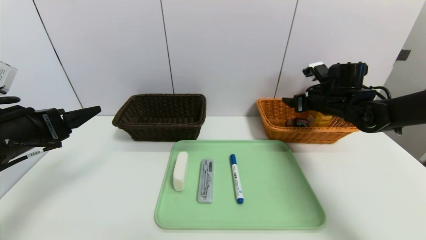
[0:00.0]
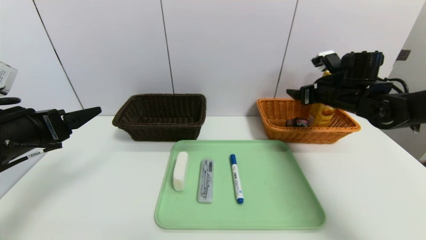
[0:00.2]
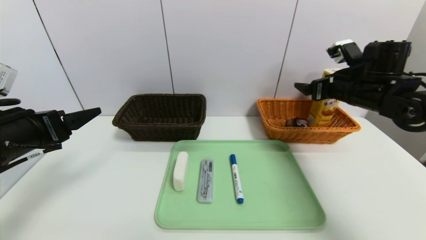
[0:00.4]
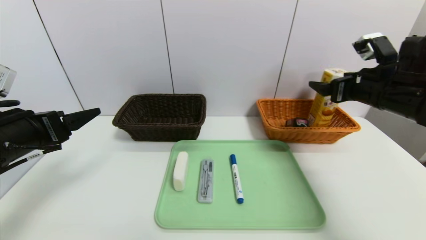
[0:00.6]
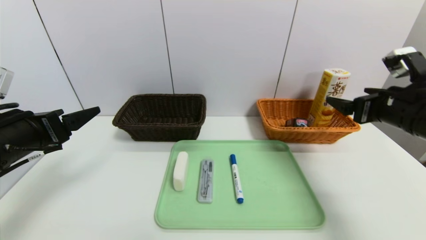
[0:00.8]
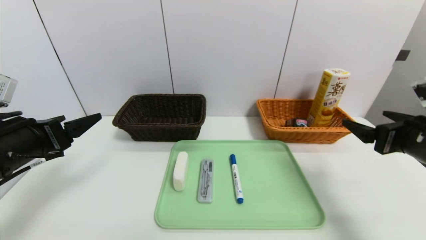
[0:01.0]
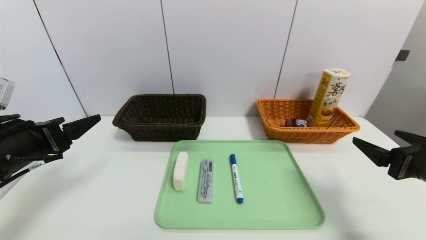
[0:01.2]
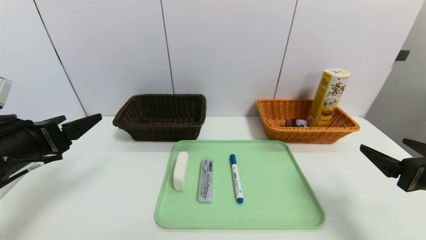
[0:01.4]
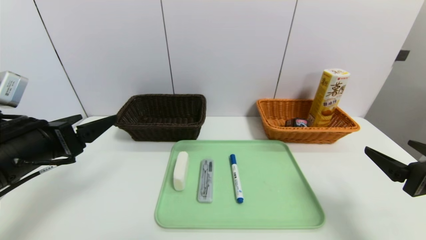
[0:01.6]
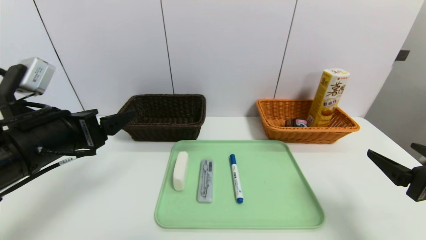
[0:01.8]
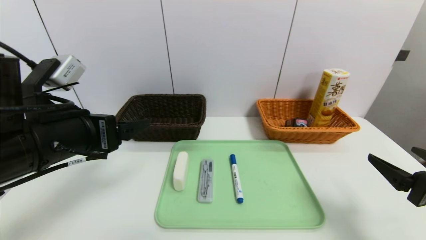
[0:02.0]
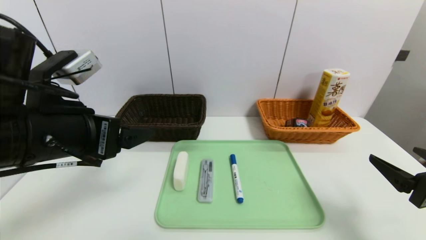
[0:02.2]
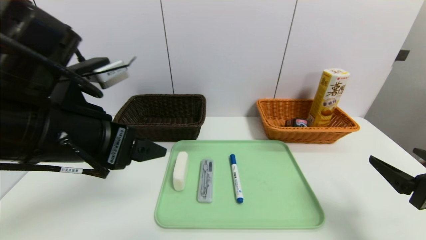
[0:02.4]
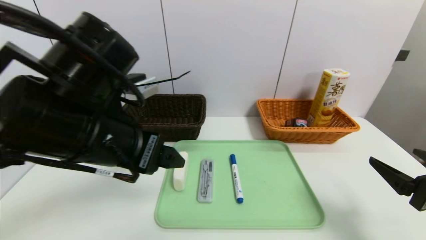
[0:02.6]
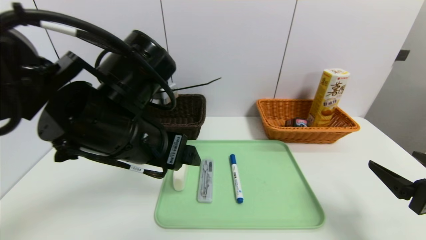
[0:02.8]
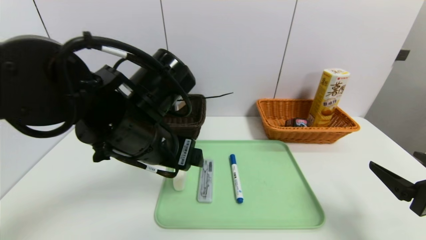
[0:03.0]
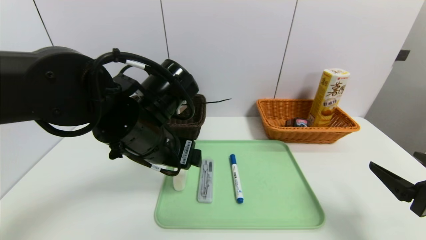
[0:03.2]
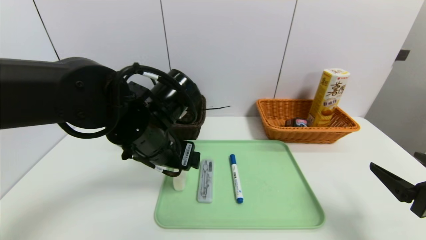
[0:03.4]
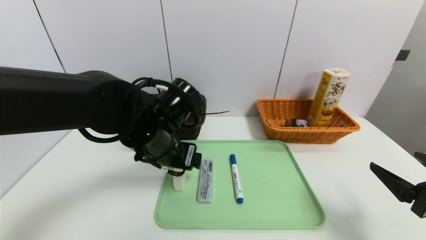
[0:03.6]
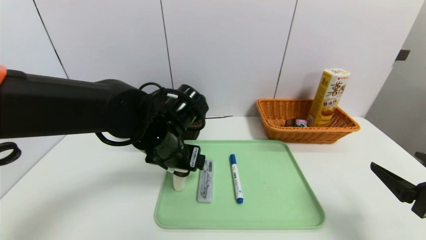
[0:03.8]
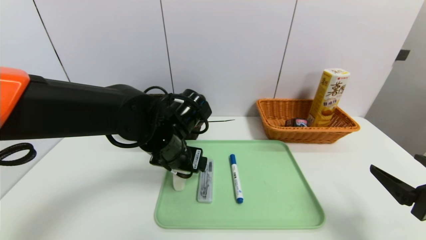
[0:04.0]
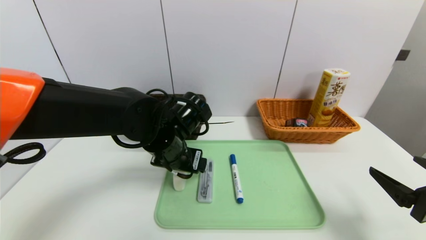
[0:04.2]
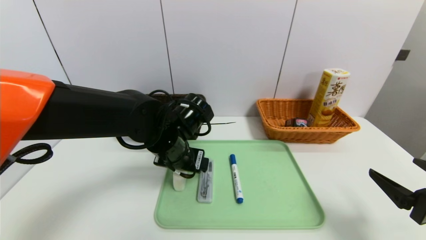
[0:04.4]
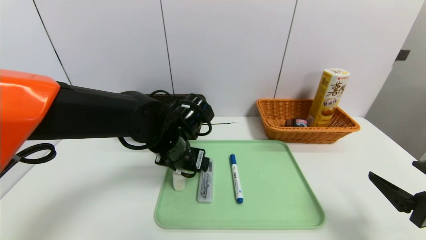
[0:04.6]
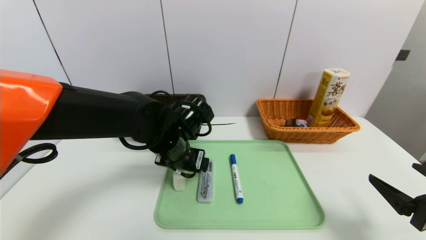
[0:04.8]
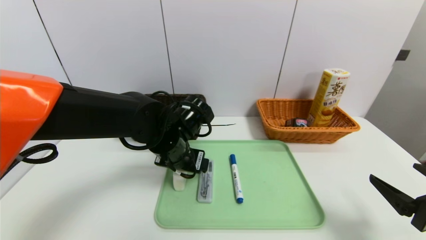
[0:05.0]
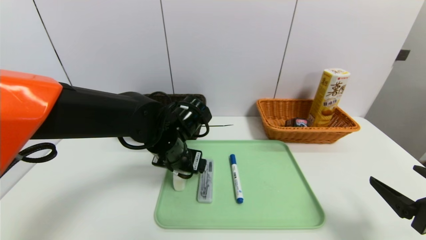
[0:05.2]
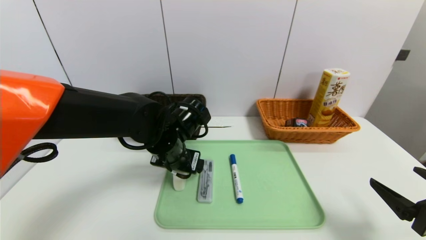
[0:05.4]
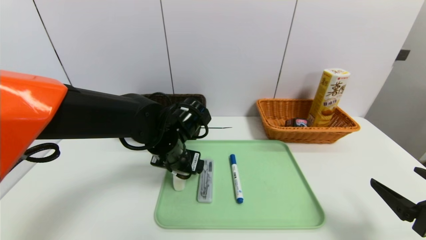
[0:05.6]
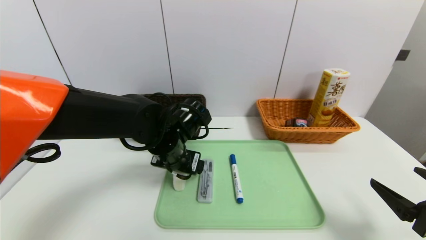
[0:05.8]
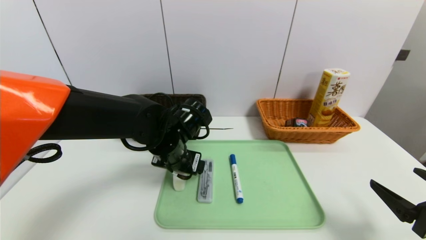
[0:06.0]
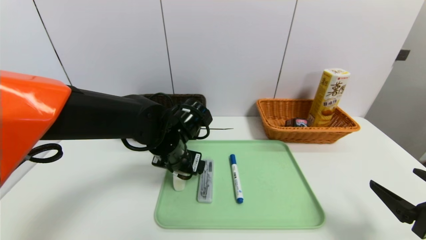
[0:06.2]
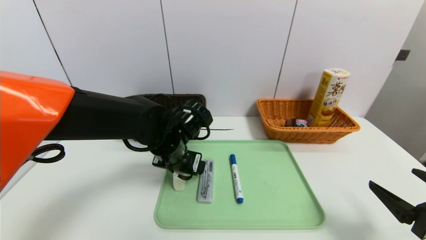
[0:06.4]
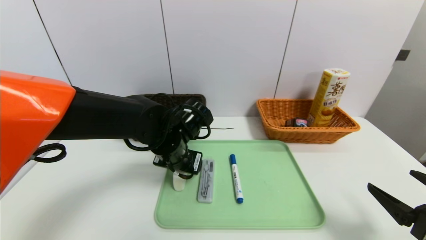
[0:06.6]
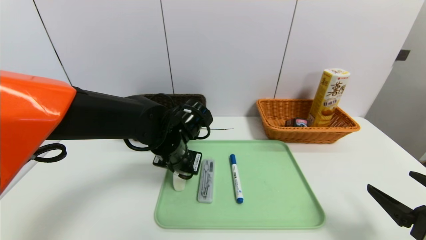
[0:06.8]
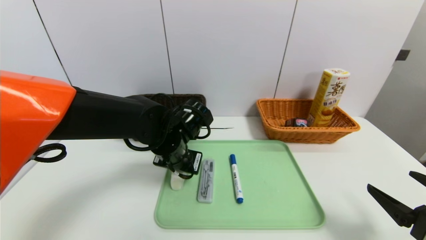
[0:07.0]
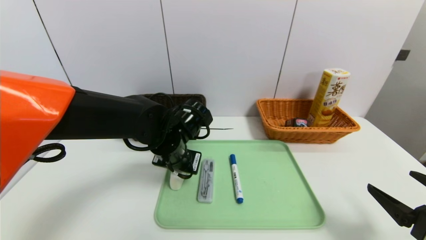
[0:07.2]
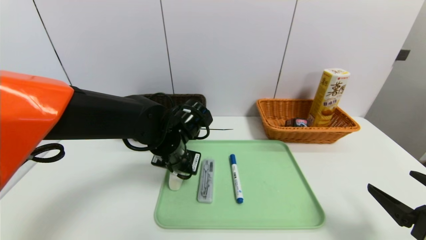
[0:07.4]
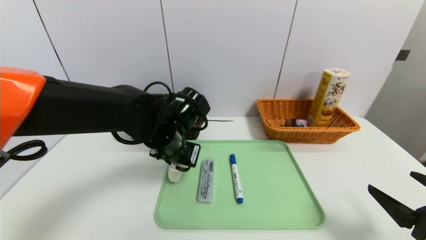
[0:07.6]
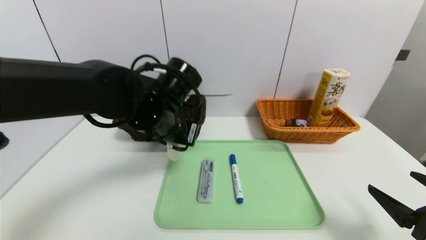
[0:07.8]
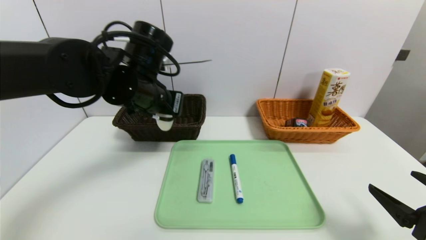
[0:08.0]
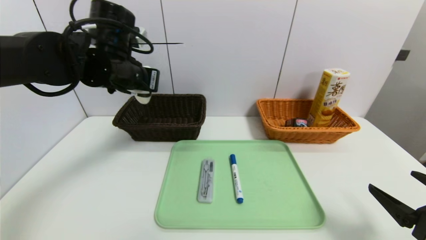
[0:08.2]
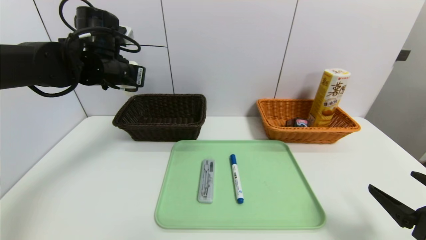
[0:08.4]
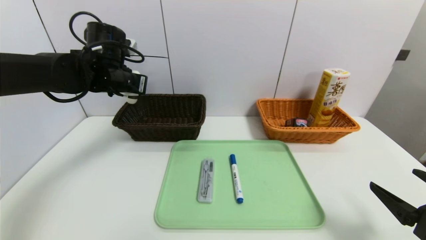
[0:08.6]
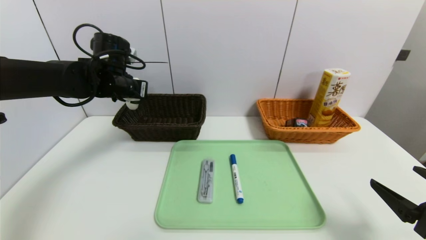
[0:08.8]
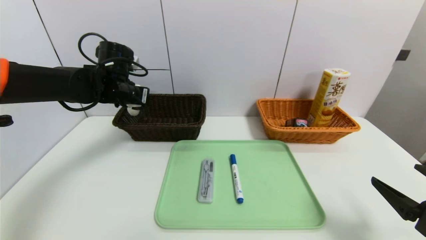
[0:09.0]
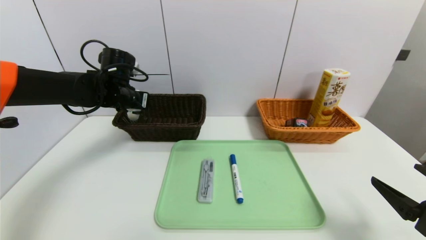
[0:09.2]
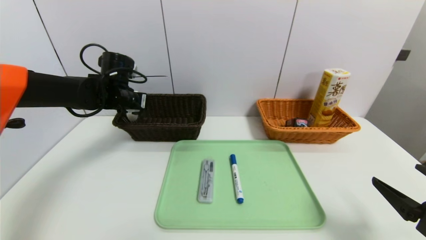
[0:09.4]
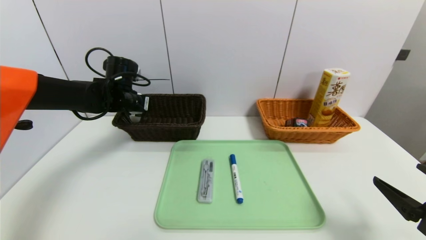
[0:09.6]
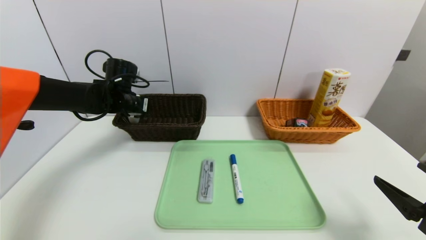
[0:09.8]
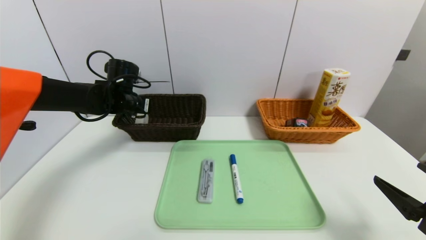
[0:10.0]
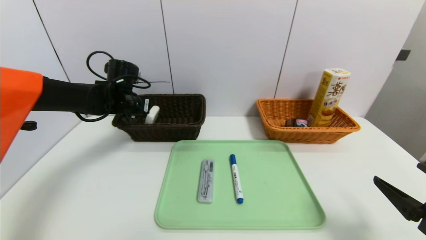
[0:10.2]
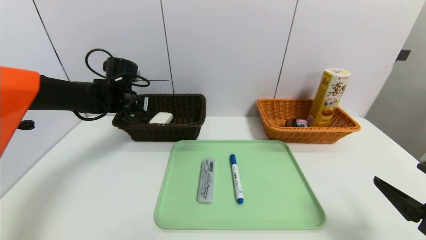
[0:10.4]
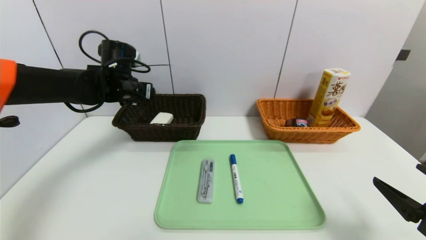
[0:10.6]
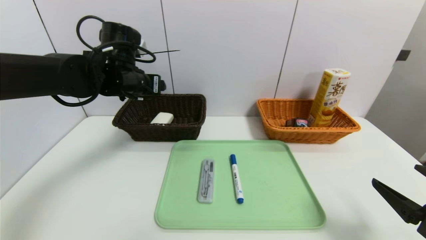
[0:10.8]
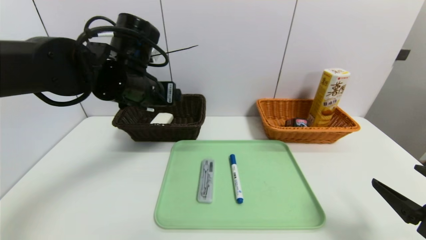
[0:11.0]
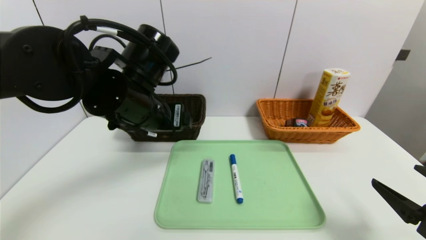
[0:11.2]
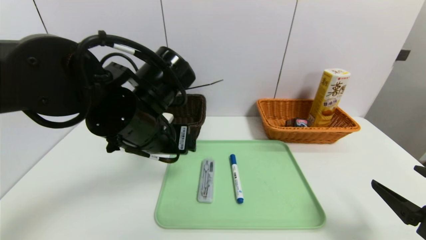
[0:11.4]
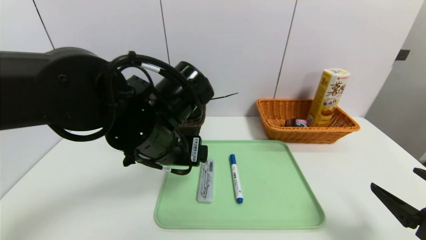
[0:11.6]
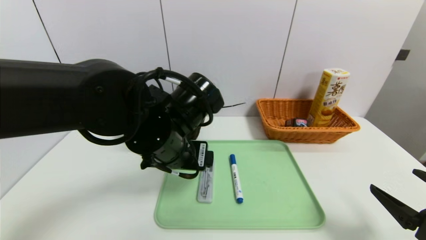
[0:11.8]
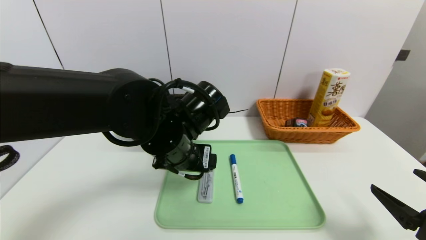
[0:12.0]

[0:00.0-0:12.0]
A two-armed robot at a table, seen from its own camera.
Task of the whole recording: place the food in the right basket with the right gripper, and place the non food items in the left basket with the left gripper.
Step, 0:00.2 to 0:10.8: Grasp the soap and put it in the left basket.
0:00.0 to 0:01.6: The right gripper heads backward, covering approximately 30 cm.
0:01.6 to 0:03.0: The left gripper shifts some 15 cm to the right.
0:03.0 to 0:04.4: The left gripper is displaced downward and forward by approximately 10 cm.
0:04.4 to 0:06.0: The grippers move only a little.
0:06.0 to 0:07.6: The left gripper closes up.
0:07.6 to 0:09.0: The left gripper shifts approximately 20 cm to the left and forward.
0:09.0 to 0:10.4: The left gripper opens up.
0:10.4 to 0:12.0: The left gripper goes roughly 25 cm backward and to the right.

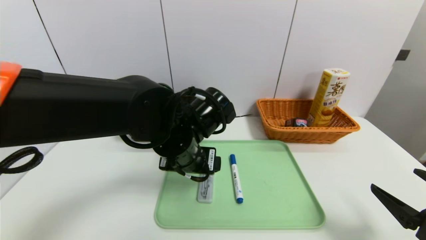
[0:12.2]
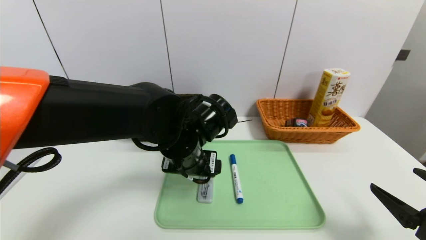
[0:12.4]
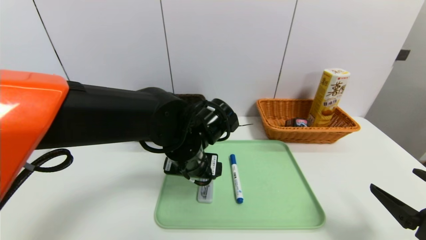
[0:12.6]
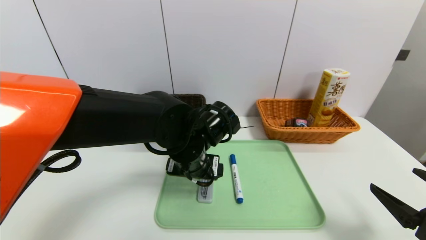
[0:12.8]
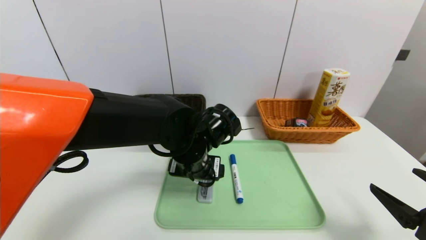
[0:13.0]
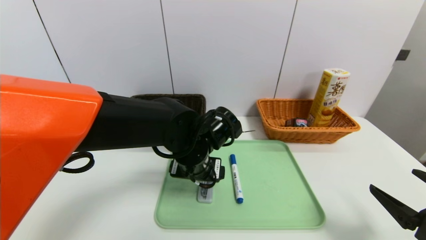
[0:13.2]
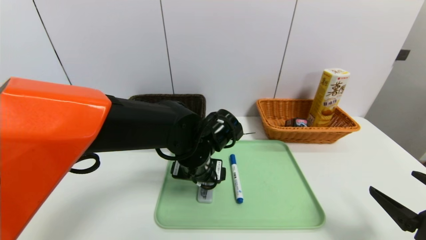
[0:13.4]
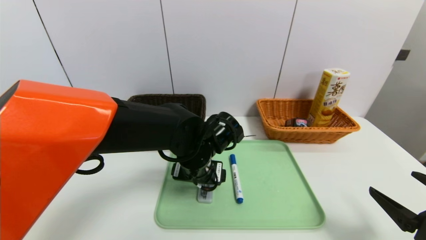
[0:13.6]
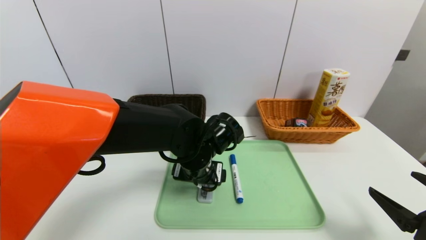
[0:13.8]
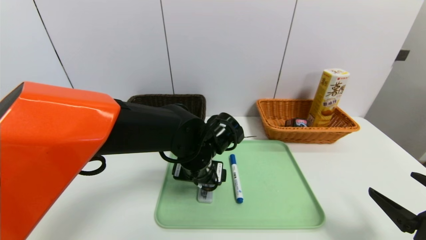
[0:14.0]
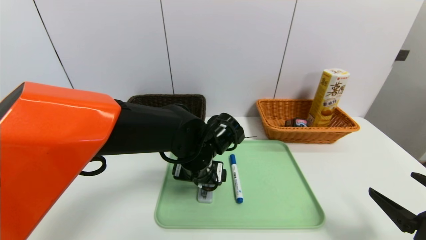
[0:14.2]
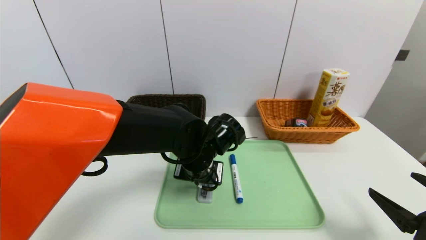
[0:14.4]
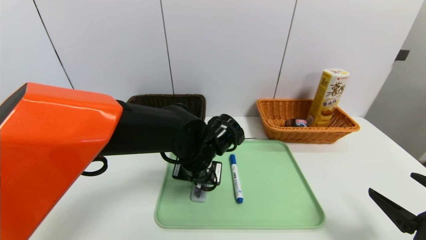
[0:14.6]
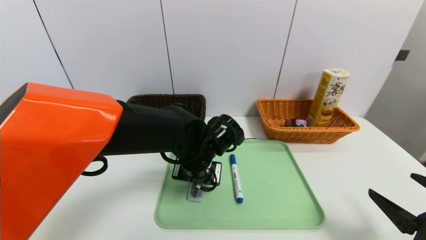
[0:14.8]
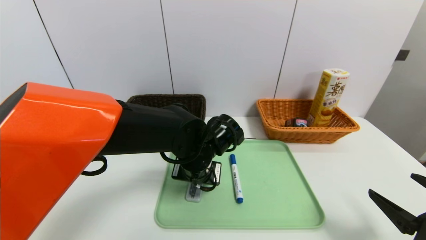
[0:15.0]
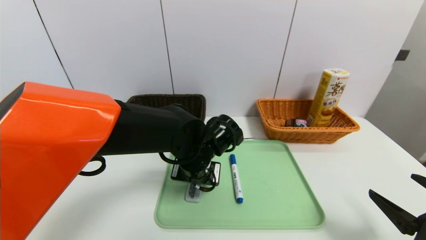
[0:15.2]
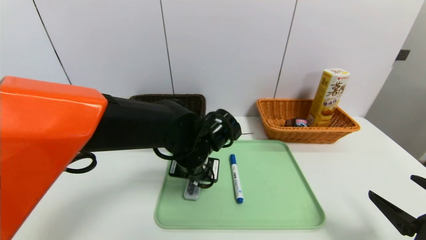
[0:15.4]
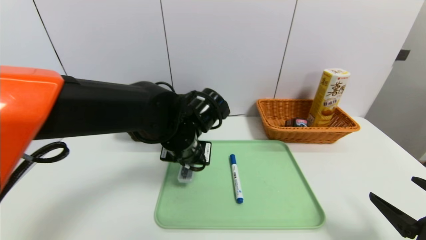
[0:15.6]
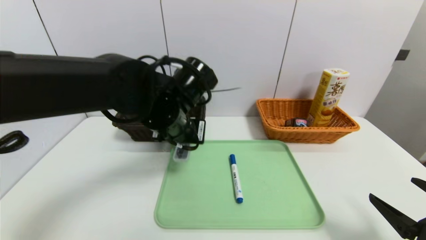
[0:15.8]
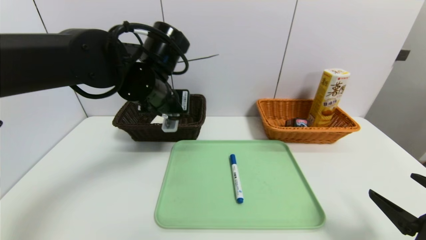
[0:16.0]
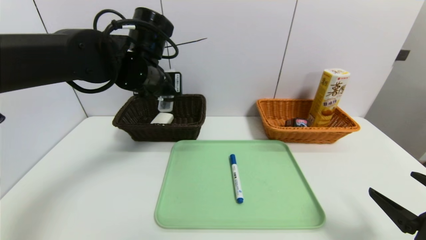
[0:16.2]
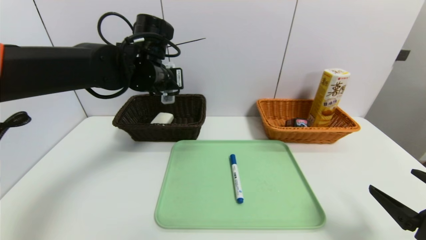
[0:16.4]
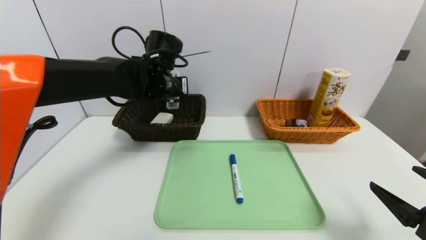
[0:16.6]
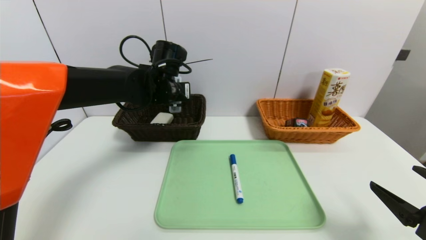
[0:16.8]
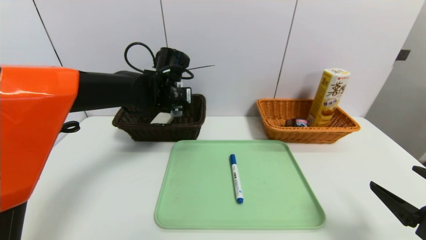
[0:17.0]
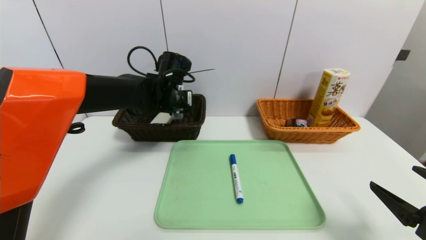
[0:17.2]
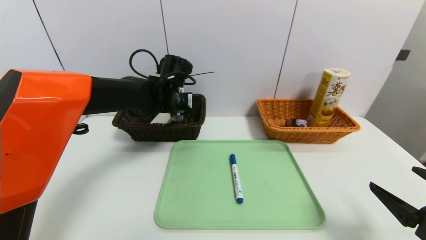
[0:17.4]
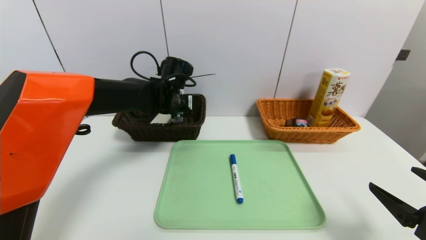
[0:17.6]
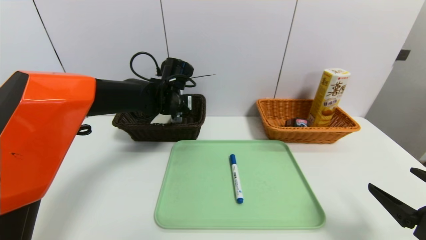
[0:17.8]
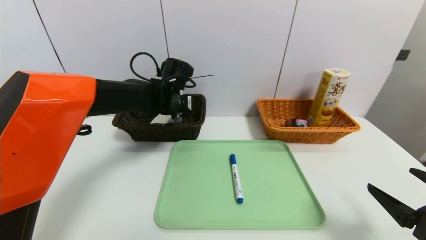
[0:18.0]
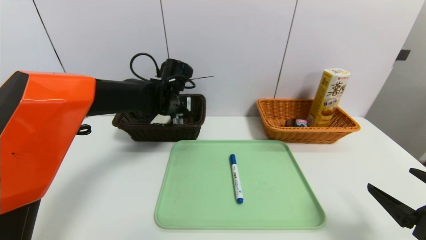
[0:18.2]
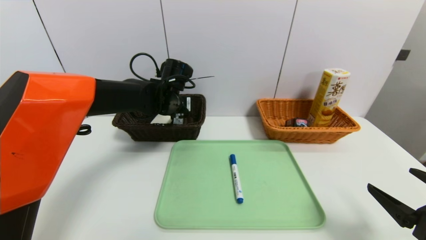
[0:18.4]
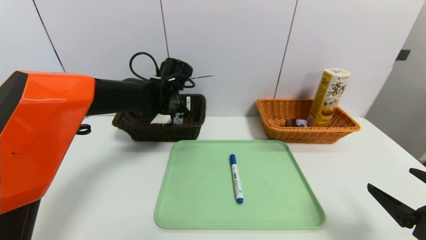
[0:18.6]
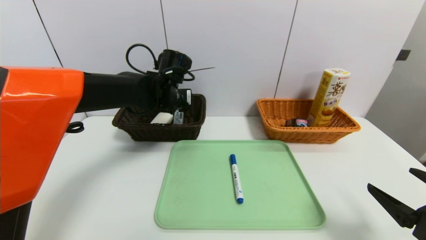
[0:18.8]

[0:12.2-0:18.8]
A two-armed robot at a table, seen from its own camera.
Task of the whole recording: place the food in the right basket with the right gripper, and place the non food items in the left basket with the left gripper.
Step, 0:12.2 to 0:18.8: Grasp the compass and put it in the left basket.
0:12.2 to 0:13.8: The left gripper shifts approximately 5 cm downward.
0:13.8 to 0:15.4: The left gripper closes up.
0:15.4 to 0:17.2: The left gripper is displaced forward, to the left and upward by approximately 15 cm.
0:17.2 to 0:18.8: The left gripper opens up.
